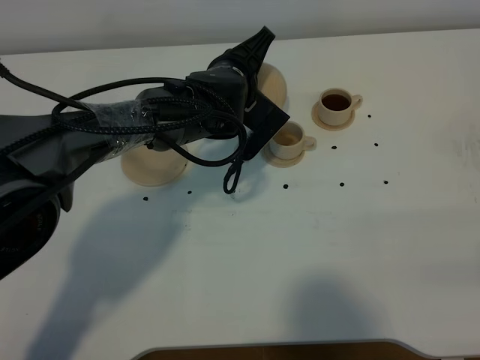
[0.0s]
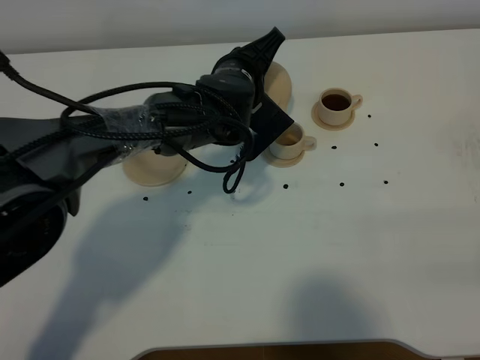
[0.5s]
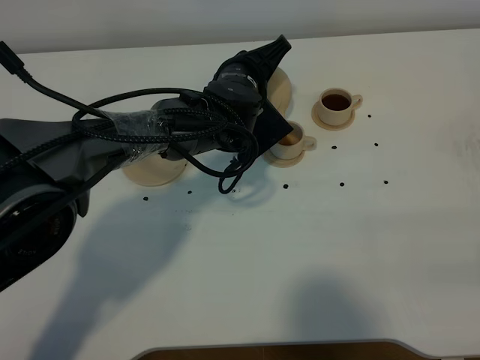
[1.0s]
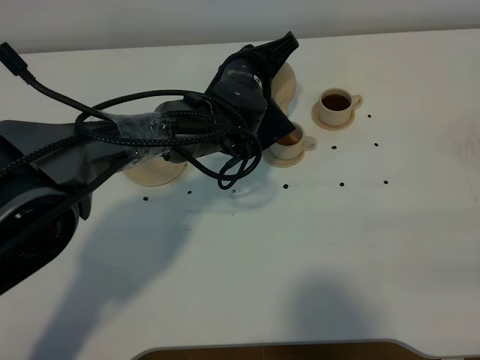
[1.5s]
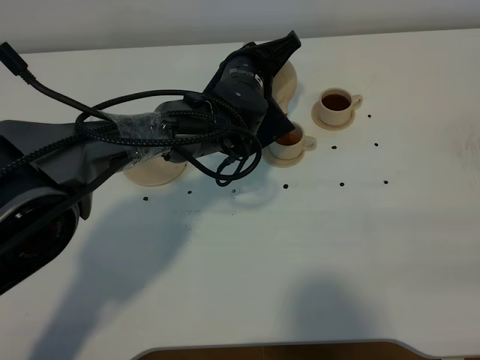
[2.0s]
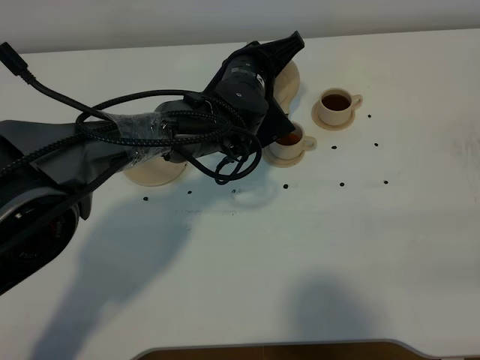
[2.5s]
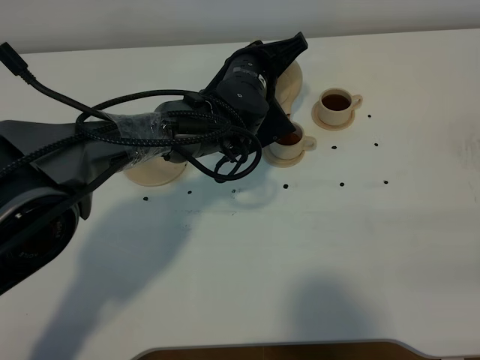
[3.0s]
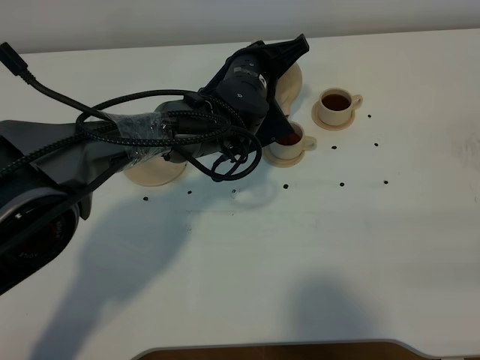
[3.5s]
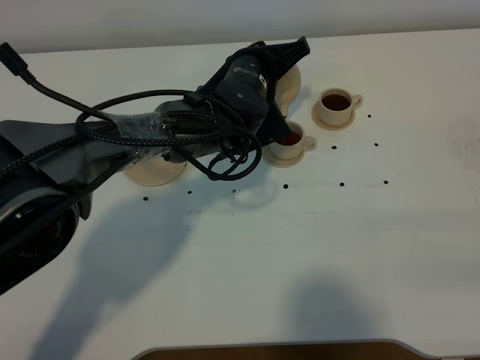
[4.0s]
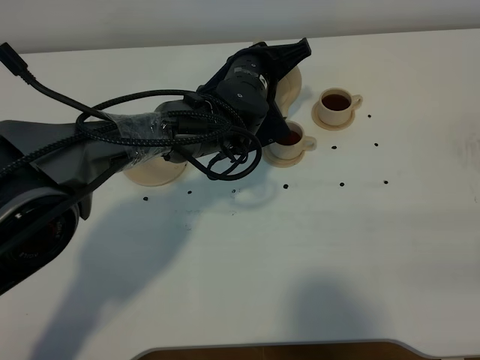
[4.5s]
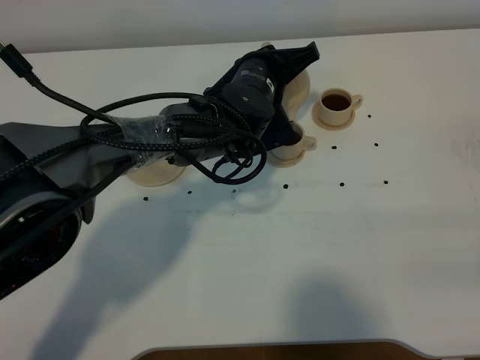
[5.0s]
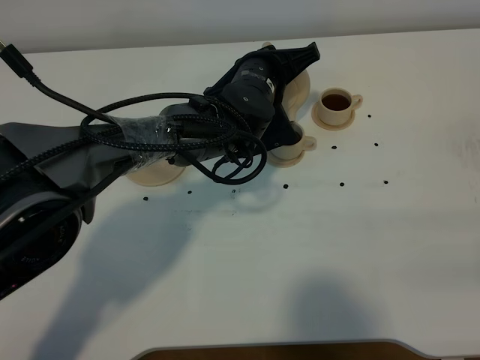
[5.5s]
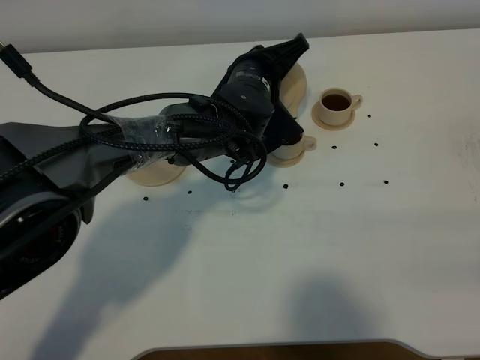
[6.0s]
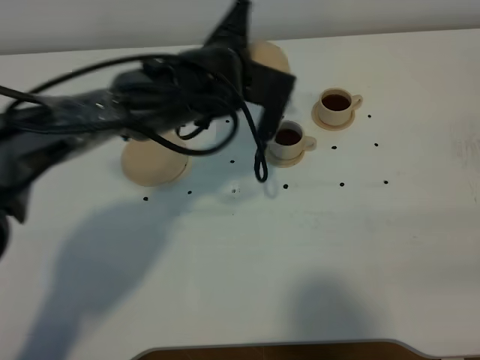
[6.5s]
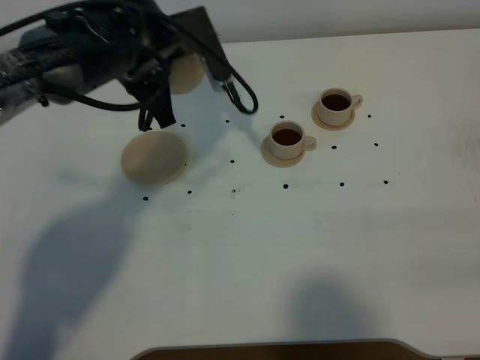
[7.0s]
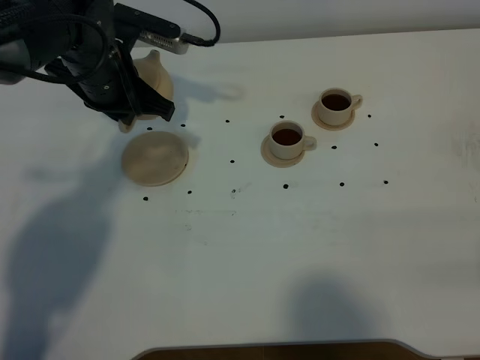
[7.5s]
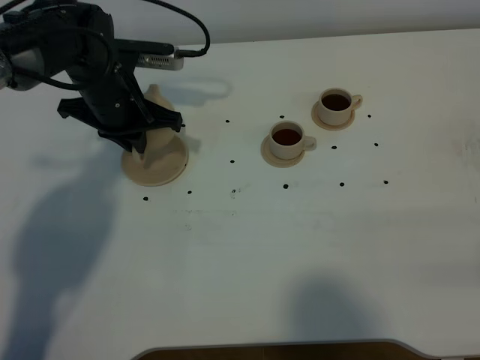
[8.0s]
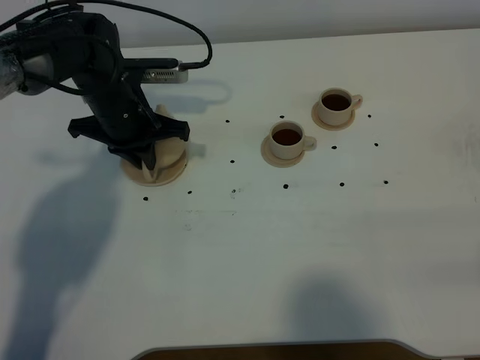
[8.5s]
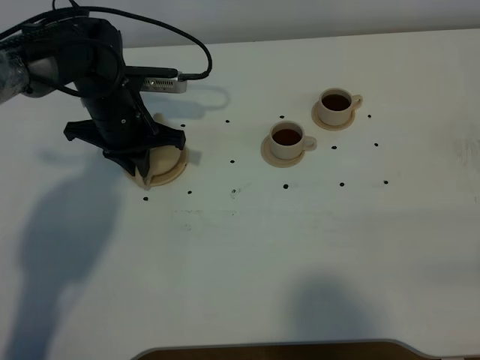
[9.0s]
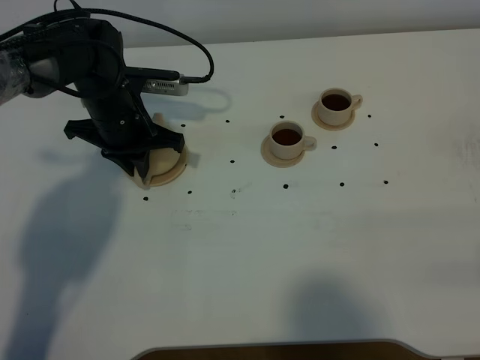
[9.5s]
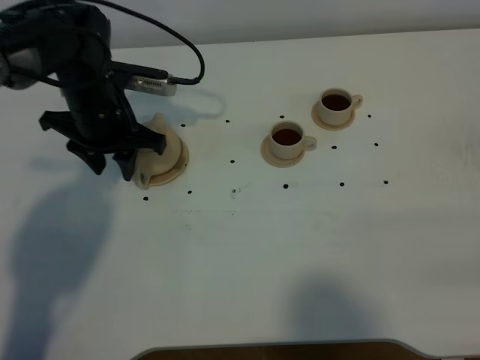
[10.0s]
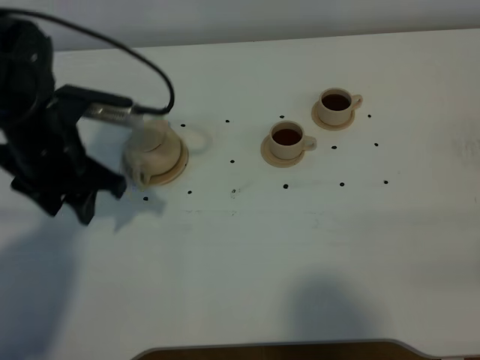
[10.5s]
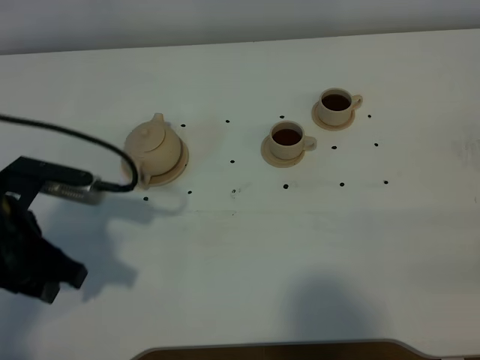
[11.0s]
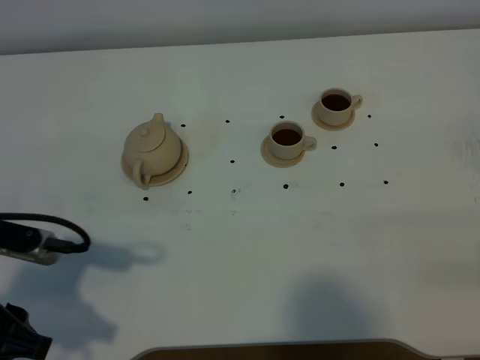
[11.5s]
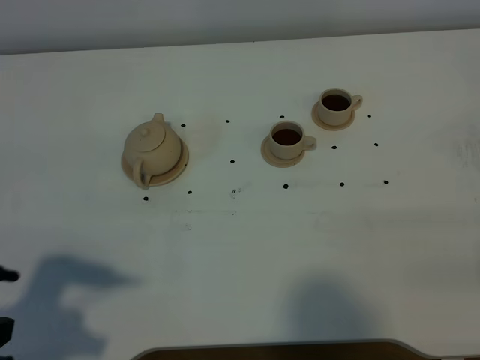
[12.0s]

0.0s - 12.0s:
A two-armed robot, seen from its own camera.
Task of the whole recording: grasp the brown teapot and pour the tea into the two brown teacups one by one, put the brown teapot back in its original place.
Step, 0.0s - 6.5s: Pour tea into the teacup with the left gripper.
0.0s - 2.0s: The grippers stay close to where they were, moving slightly.
2.0s - 6.0s: The grippers stay close to where they were, moving slightly.
6.0s - 8.0s: The left gripper moves to the left, approximately 20 cm.
8.0s - 10.0s: The left gripper opens its fingers.
10.0s - 12.0s: The left gripper moves backward, about 30 cm.

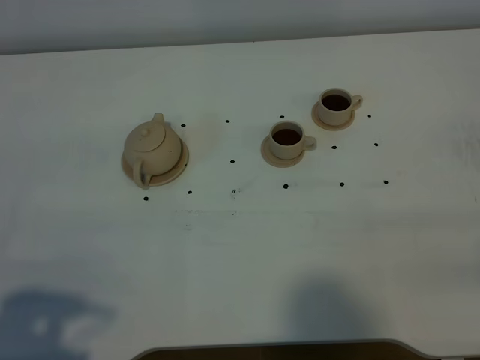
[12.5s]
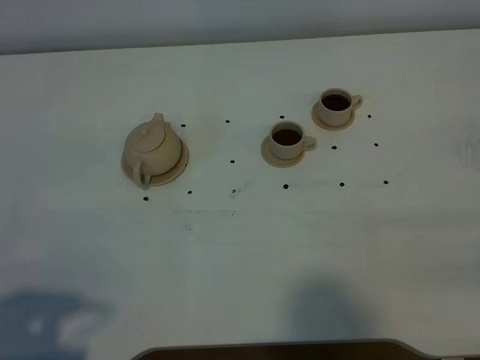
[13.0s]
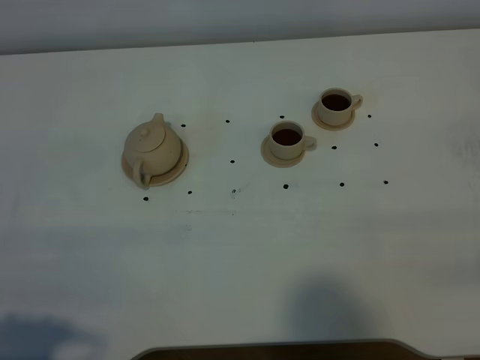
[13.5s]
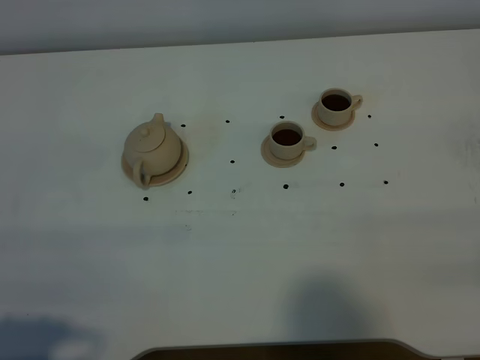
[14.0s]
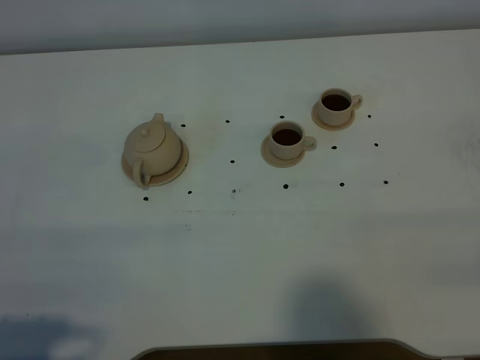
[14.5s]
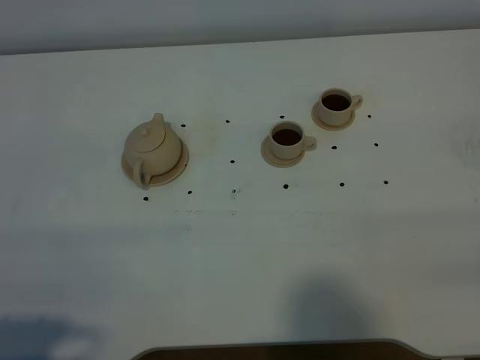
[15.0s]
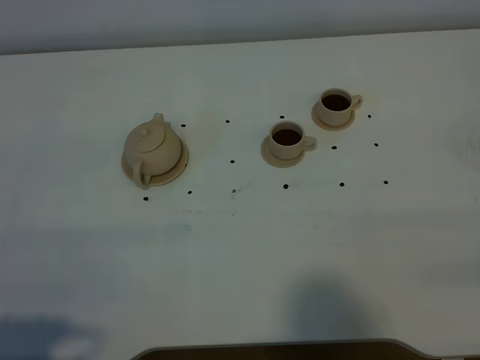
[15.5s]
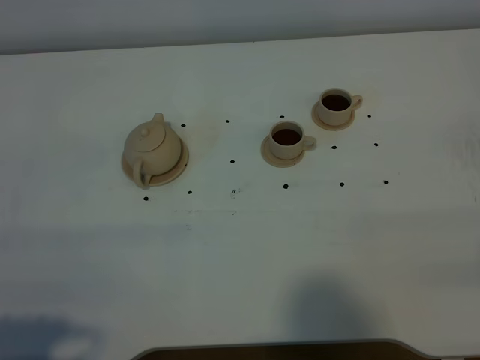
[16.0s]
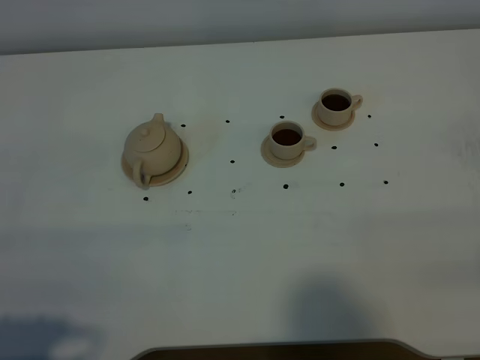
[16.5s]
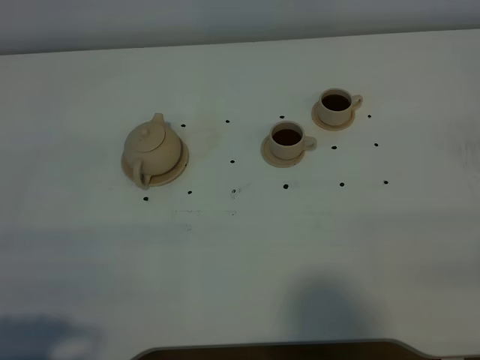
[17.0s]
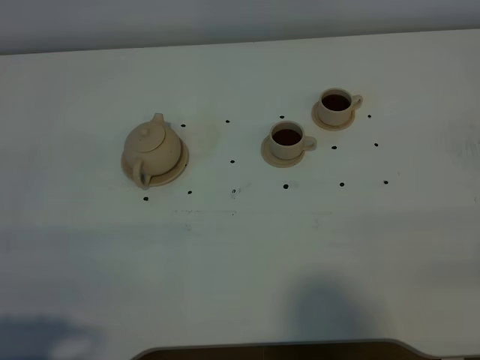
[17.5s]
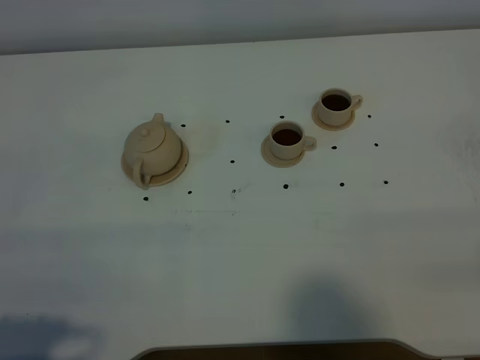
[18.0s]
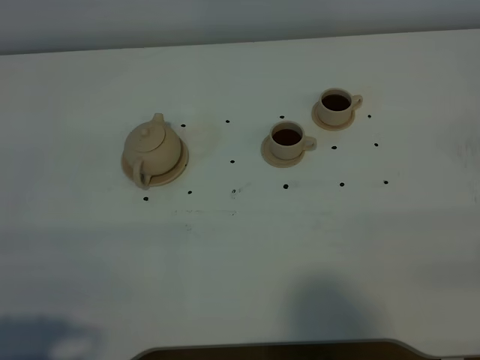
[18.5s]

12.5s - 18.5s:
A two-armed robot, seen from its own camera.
Task of the whole recording: grasp the brown teapot and pour the tea into the two brown teacups one by one, put the brown teapot back in its original place.
12.5s - 14.5s: The grippers stay close to where they were, moving slightly.
14.5s - 18.5s: The two grippers keep their place.

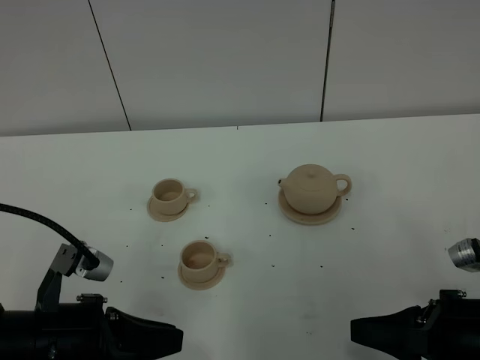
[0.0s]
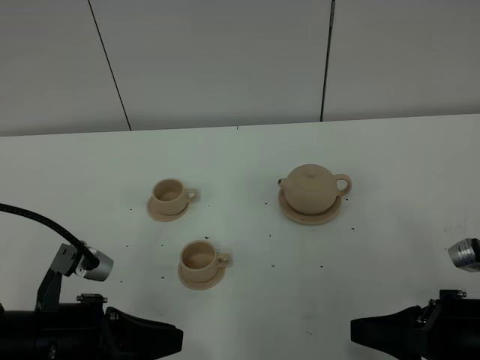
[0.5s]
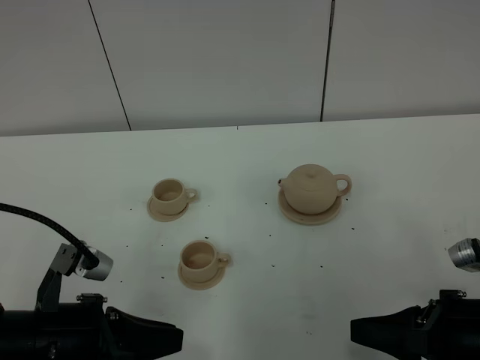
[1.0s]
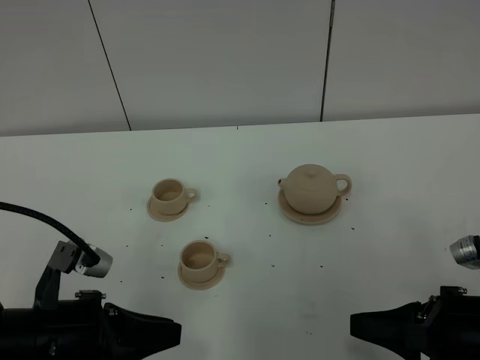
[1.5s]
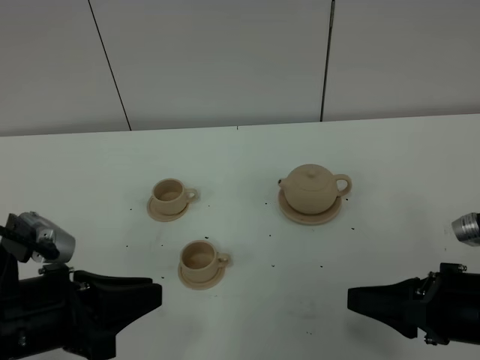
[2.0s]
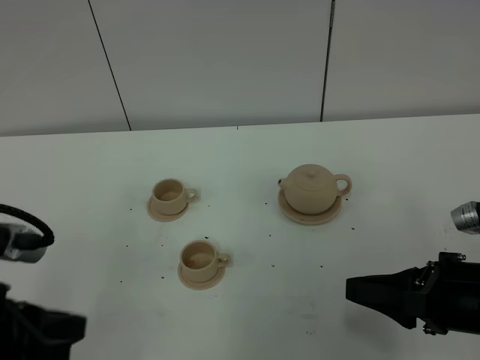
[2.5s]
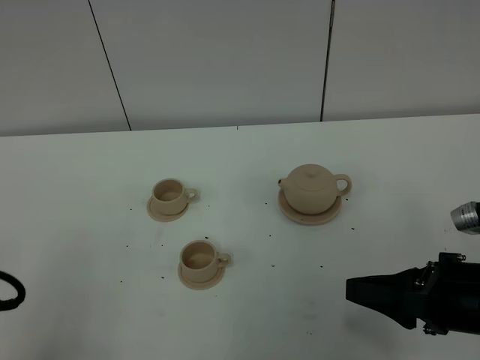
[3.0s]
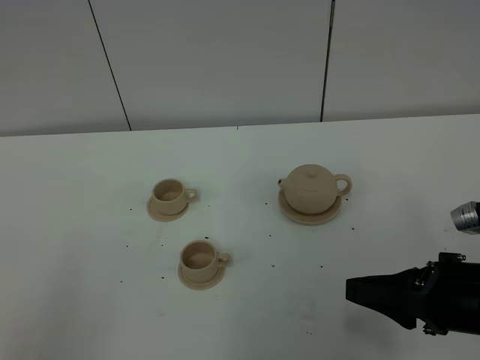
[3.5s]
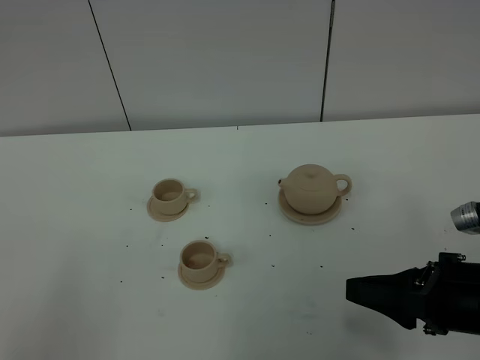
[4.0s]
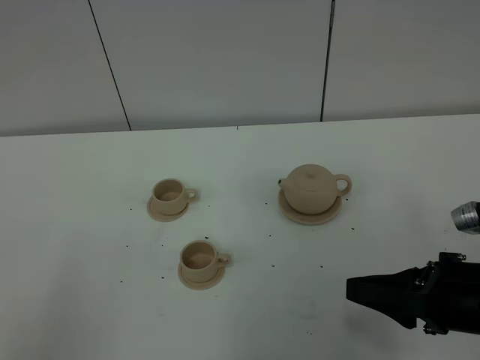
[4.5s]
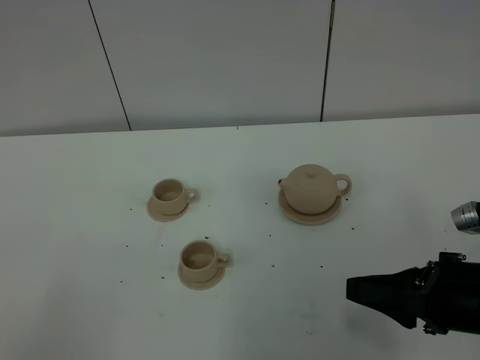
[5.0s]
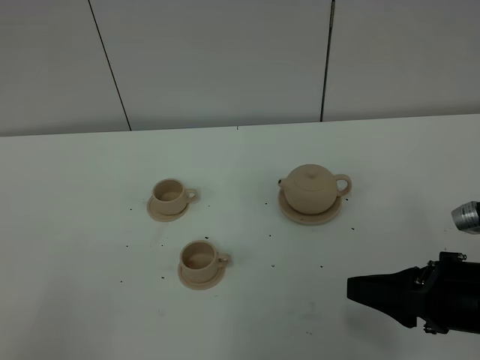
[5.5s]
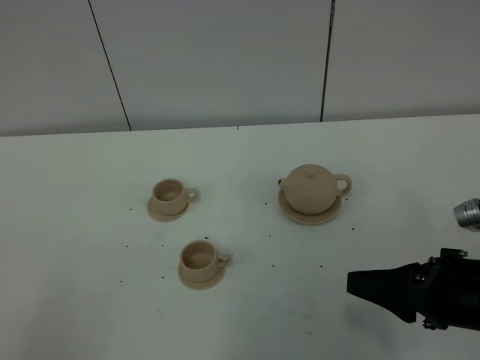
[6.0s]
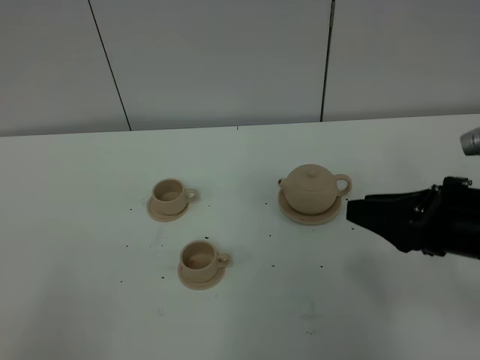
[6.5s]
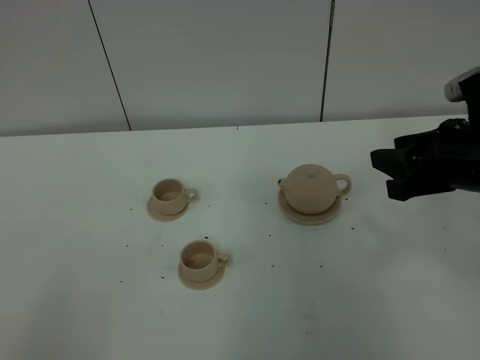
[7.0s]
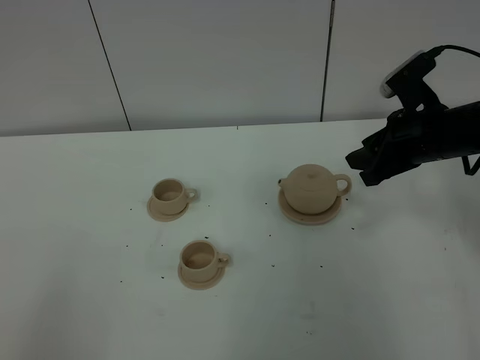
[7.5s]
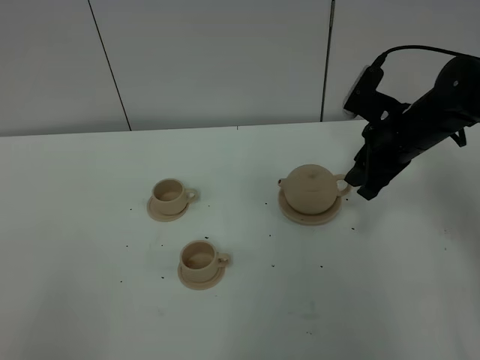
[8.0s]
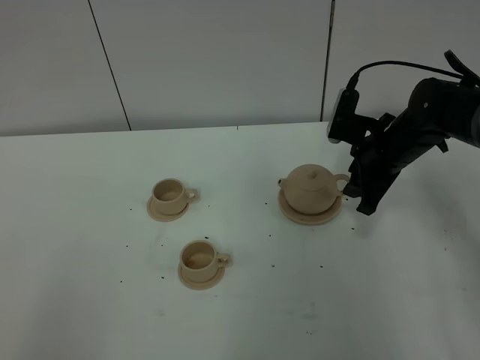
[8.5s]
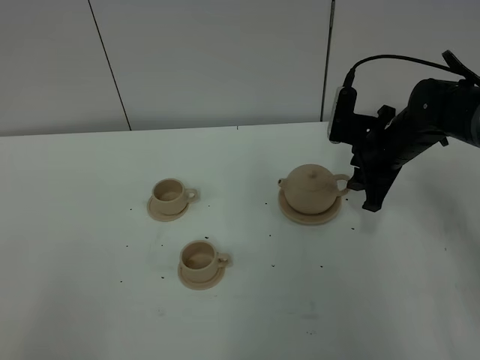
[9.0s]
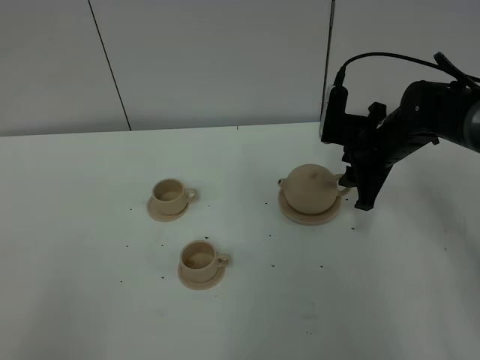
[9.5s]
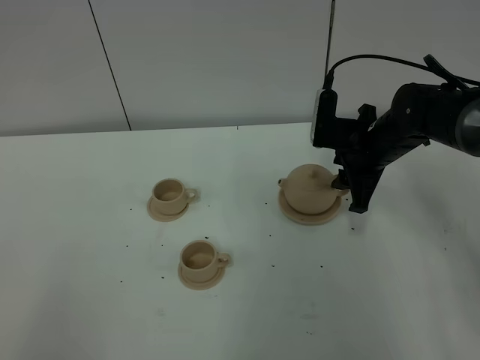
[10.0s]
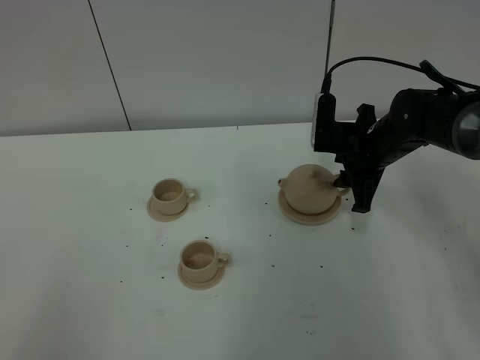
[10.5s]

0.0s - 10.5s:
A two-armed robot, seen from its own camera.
Task of the whole recording: grasp the brown teapot and pour the tea into the two brown teacups one by one, put the brown teapot back in its original place.
0.0s - 2.0s: The grippers stay close to where they were, moving slightly.
2.0s - 4.0s: The left gripper shifts approximately 15 cm backward and to the left.
4.0s - 6.5s: The right gripper heads upward, covering some 5 cm.
6.5s - 8.5s: The right gripper is displaced forward and downward by some 20 cm.
8.5s - 10.5s: The grippers move only a little.
